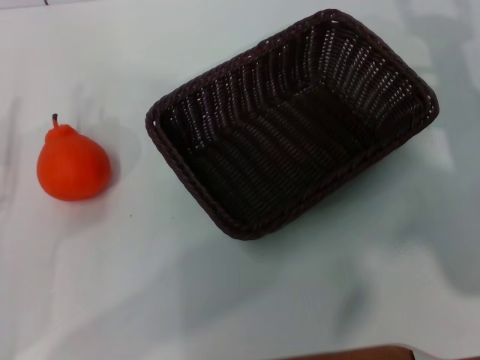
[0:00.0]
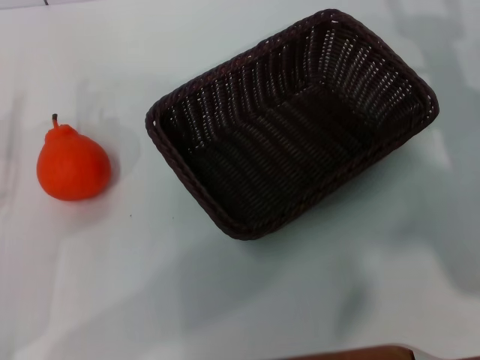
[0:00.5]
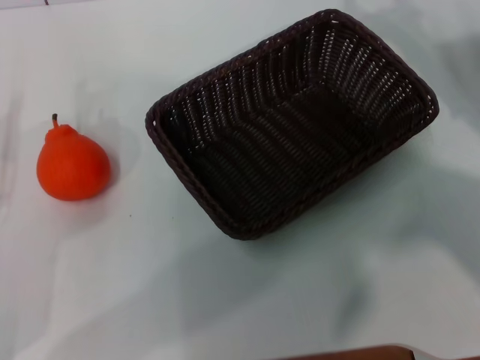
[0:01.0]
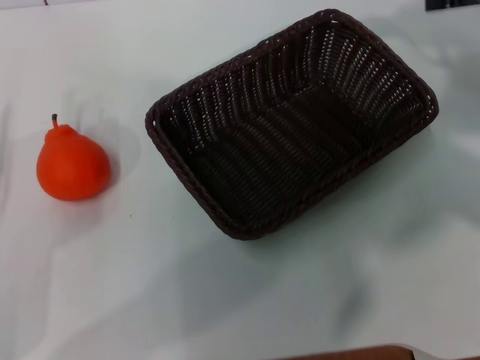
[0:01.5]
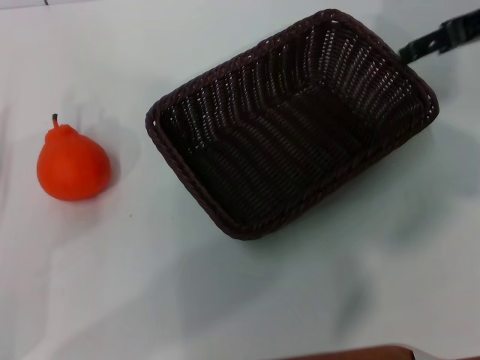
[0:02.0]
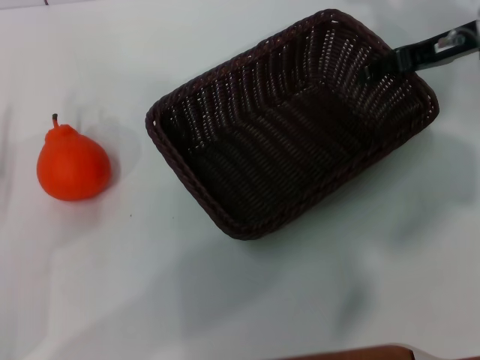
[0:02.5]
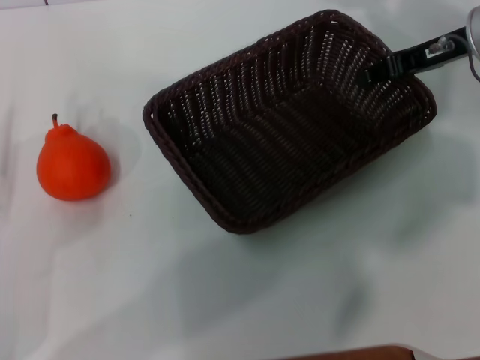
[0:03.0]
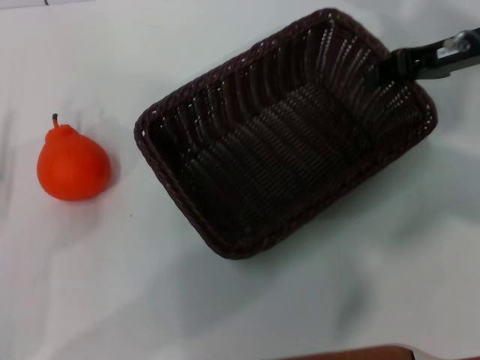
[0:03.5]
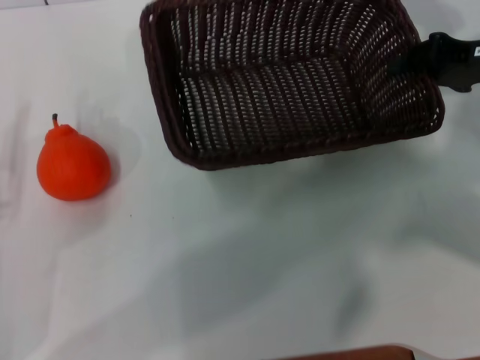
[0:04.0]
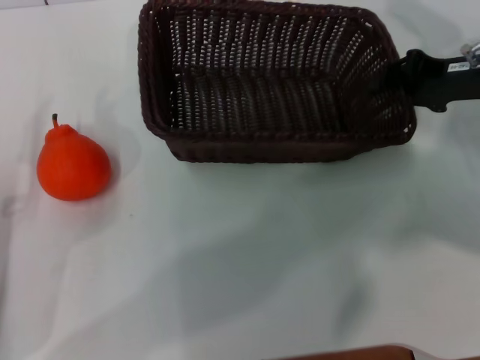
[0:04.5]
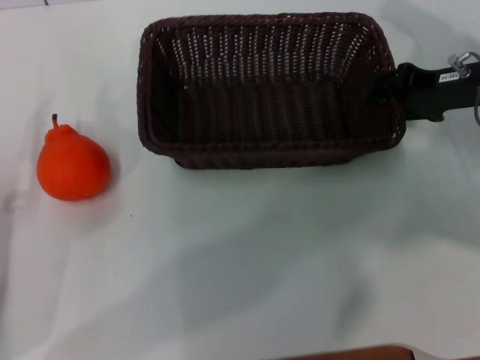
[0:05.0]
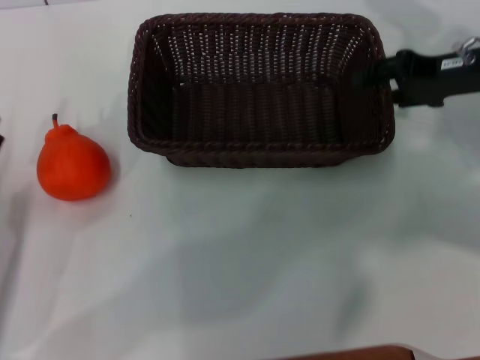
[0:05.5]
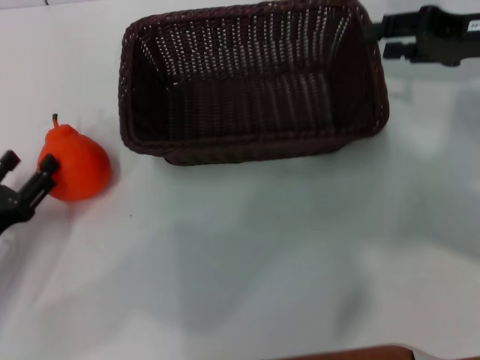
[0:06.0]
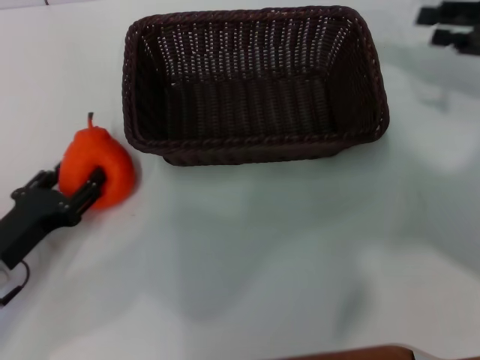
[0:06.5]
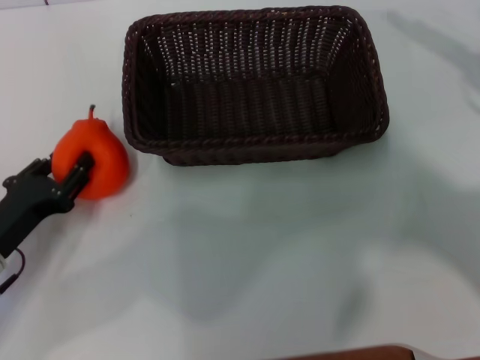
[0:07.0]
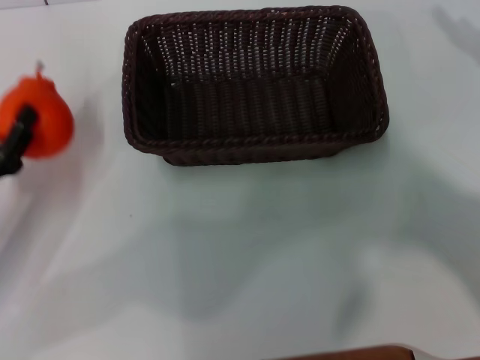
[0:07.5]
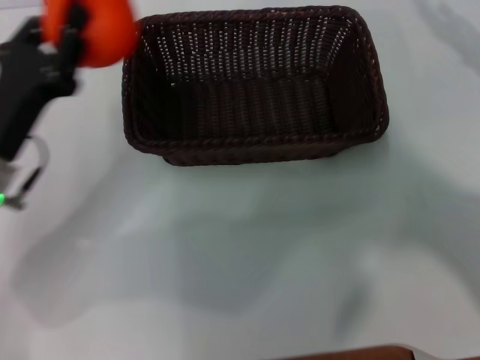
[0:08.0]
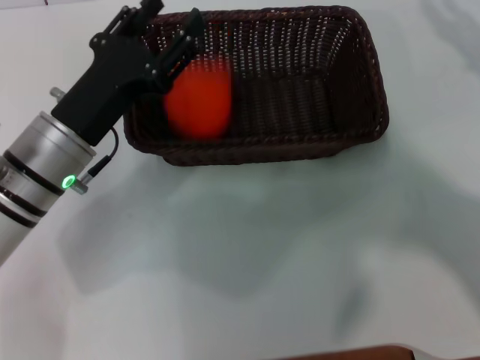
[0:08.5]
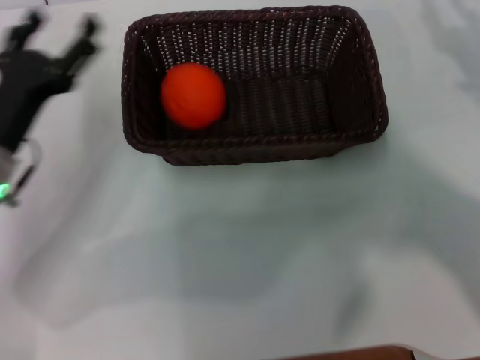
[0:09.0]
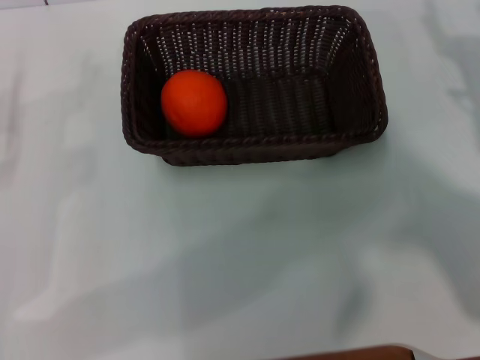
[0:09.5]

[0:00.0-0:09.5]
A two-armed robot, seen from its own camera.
Task of the whole recording: the right gripper pick up the black basket and place it horizontally in the middle of the table, the left gripper pick up the orange and place it into the black basket.
Step, 0:00.0 to 0:03.5: Pick up the dark basket with the right gripper.
Step, 0:04.0 to 0:05.5: Place the dark basket in the center of view with the right gripper.
Step, 0:06.0 to 0:07.0: Pick up the orange with the left gripper.
Step, 0:07.5 to 0:08.5: Place the dark basket in the center of view with the left gripper.
0:00.0 to 0:02.0: The right gripper heads upward and forward, covering approximately 15 cm.
0:02.0 to 0:04.0: The right gripper heads downward, covering about 5 cm, and closes its fingers.
0:04.0 to 0:05.5: The right gripper opens.
0:05.5 to 0:07.5: The left gripper closes, while the right gripper shifts roughly 15 cm to the right and backward.
0:07.5 to 0:09.5: The right gripper travels to the left and downward by some 10 cm, while the left gripper reaches about 15 cm to the right, then returns, and opens.

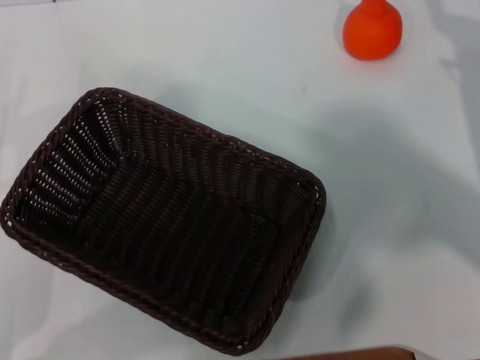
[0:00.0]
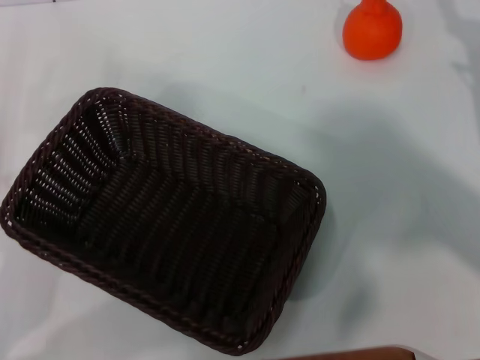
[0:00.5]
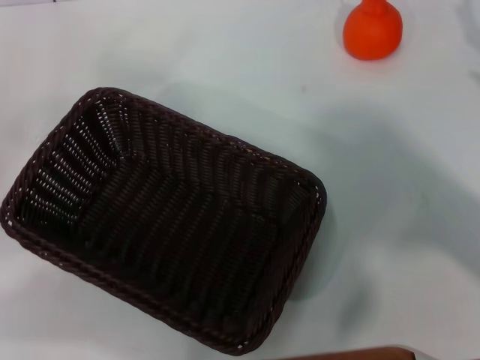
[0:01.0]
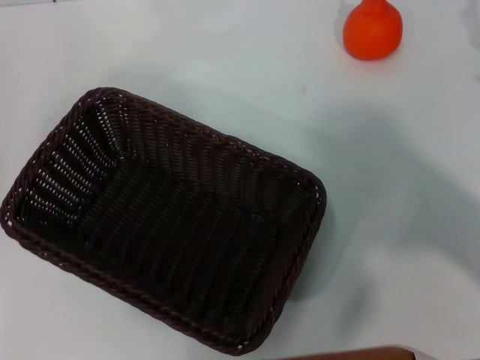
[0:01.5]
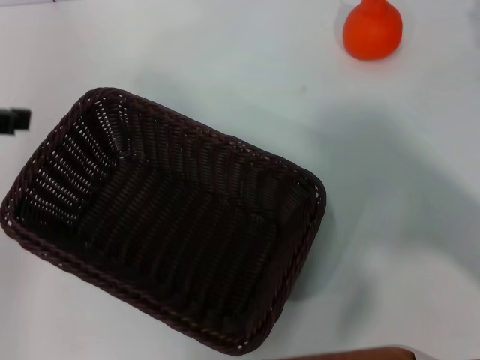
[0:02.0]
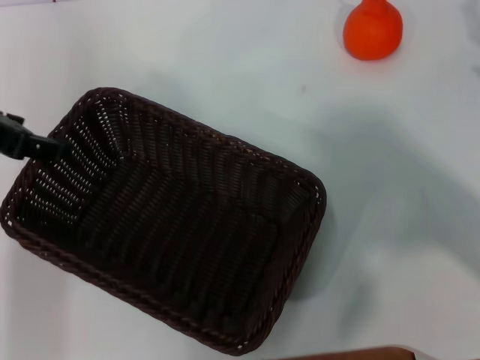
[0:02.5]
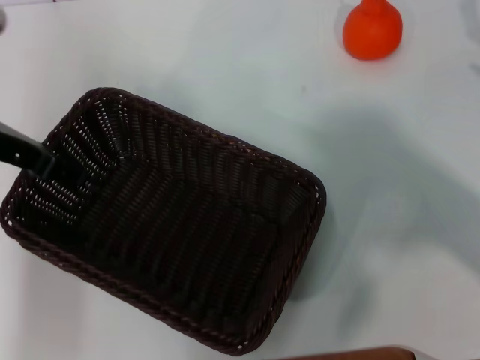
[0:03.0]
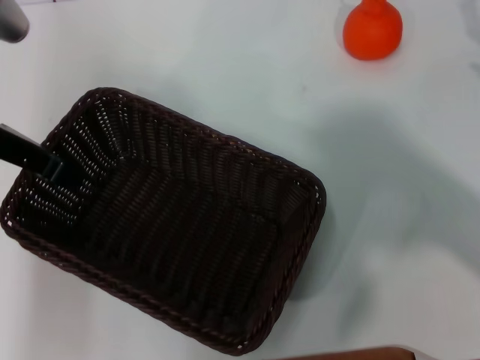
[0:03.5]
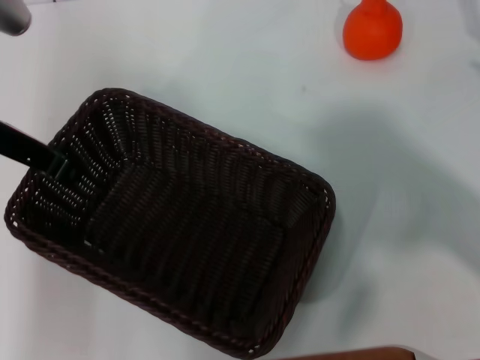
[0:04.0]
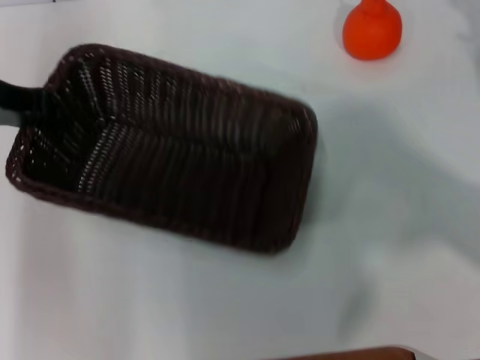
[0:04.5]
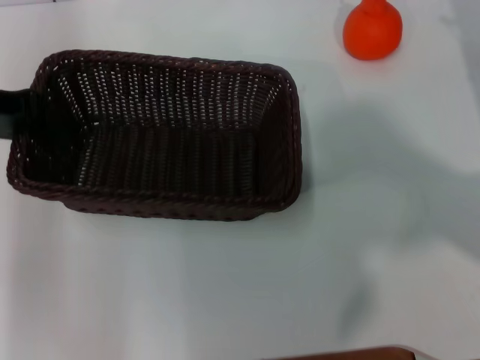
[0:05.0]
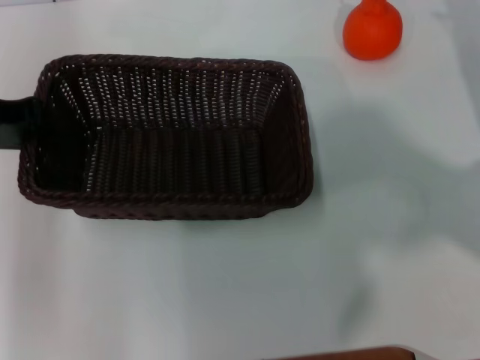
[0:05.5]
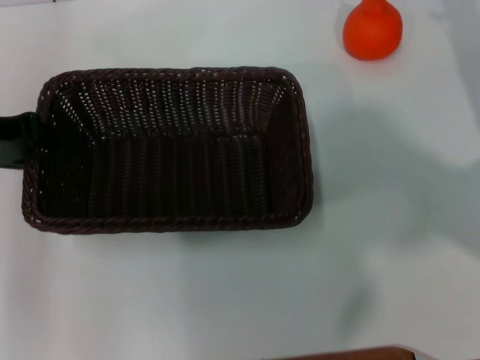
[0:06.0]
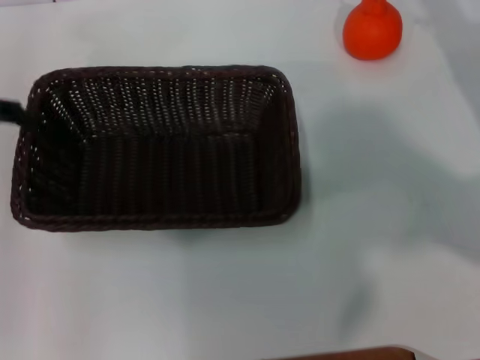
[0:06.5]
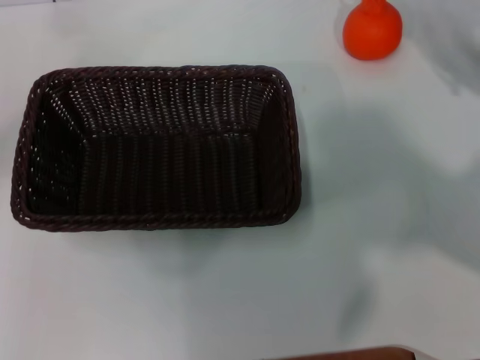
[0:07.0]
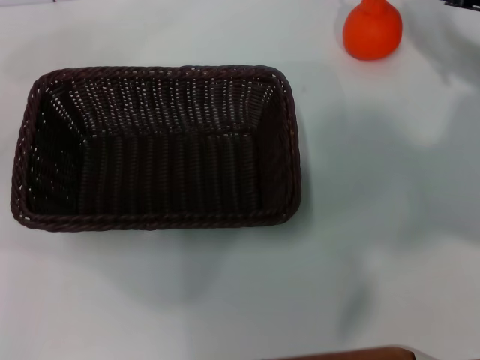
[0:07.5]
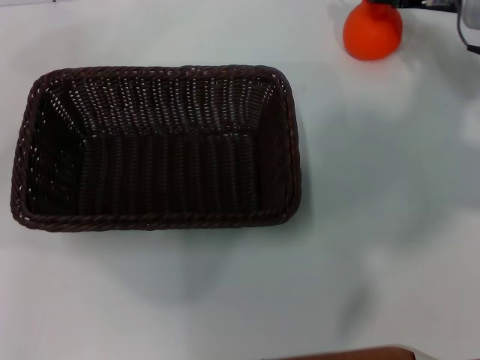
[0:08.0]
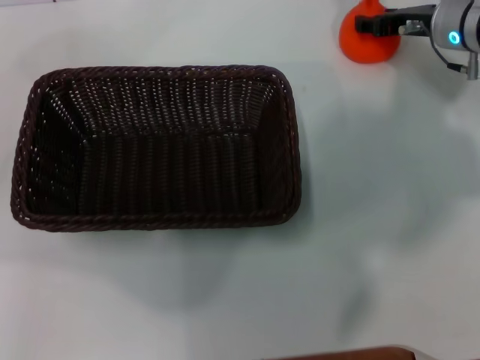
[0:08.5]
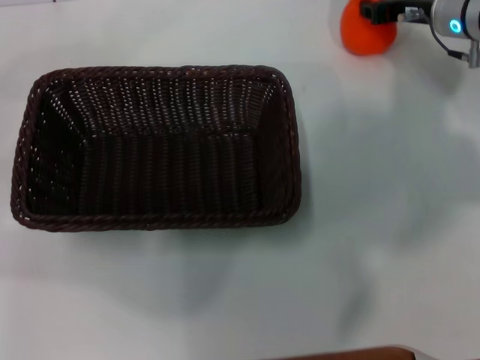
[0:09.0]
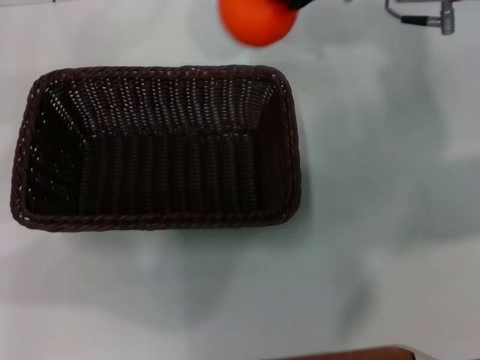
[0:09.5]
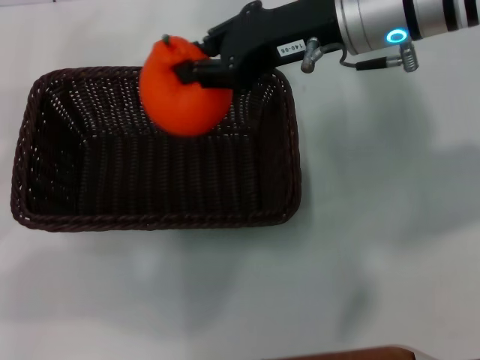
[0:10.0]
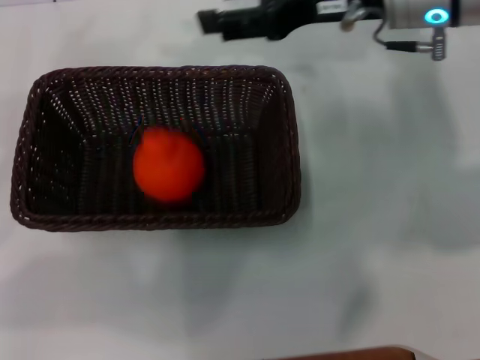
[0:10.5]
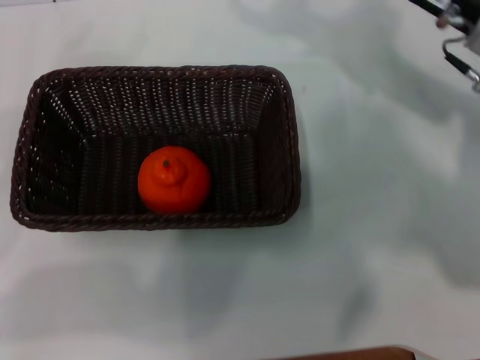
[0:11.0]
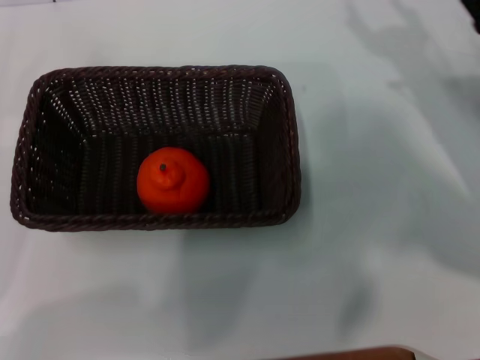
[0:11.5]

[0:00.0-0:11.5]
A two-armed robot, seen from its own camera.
Task of the whole recording: the left gripper pick up the black basket and place it horizontally in the middle of the table, the right gripper pick up the orange and place it into the black basket.
Step, 0:00.0 to 0:04.0: Pick up the dark basket with the left gripper.
Step, 0:04.5 to 0:06.0: Place the dark basket in the center of view with the left gripper.
Step, 0:06.5 to 0:09.0: Pick up the orange with the right gripper.
Step, 0:09.5 to 0:10.0: Place the orange into the dark basket with the right gripper.
0:00.0 to 0:02.0: The left gripper moves upward, about 20 cm.
0:02.0 to 0:04.0: The left gripper shifts roughly 10 cm to the right, downward and forward, and closes its fingers.
0:04.0 to 0:06.0: The right gripper heads forward, covering roughly 5 cm. The left gripper shifts approximately 5 cm to the left.
0:06.0 to 0:07.5: The right gripper shifts by about 5 cm, while the left gripper moves to the left and backward, approximately 15 cm, and opens up.
0:07.5 to 0:09.5: The right gripper shifts roughly 15 cm to the left and upward, and closes up.
0:09.5 to 0:11.5: The left gripper is displaced downward by roughly 10 cm, while the right gripper shifts approximately 20 cm downward, to the right and backward, and opens its fingers.
